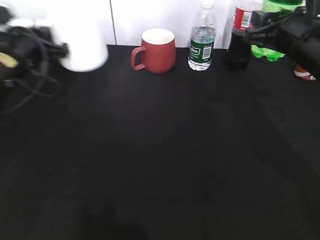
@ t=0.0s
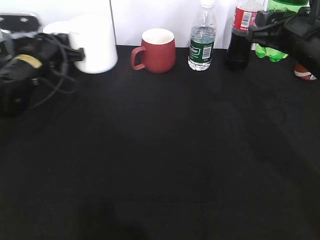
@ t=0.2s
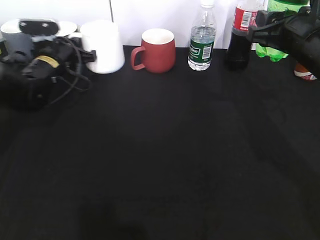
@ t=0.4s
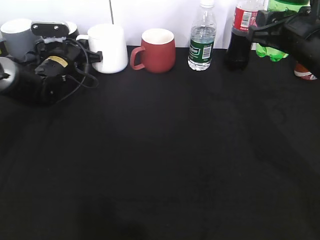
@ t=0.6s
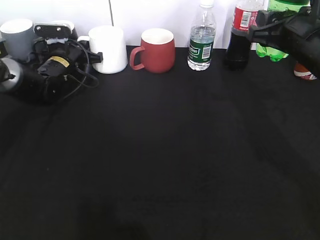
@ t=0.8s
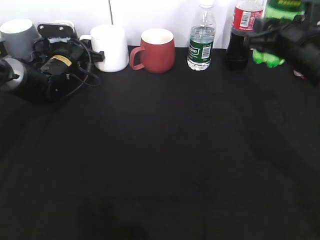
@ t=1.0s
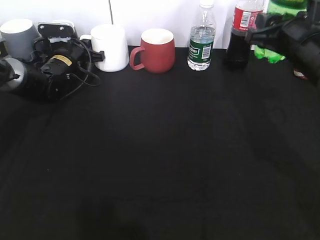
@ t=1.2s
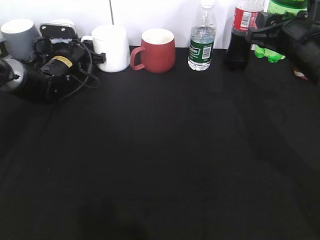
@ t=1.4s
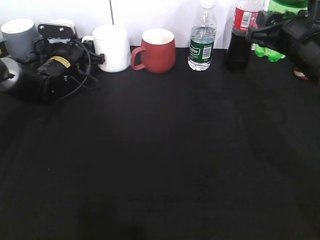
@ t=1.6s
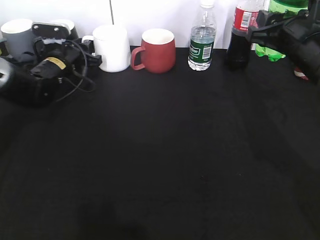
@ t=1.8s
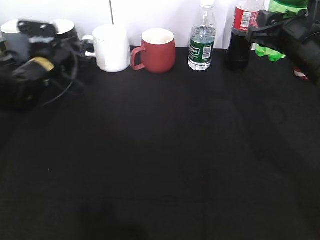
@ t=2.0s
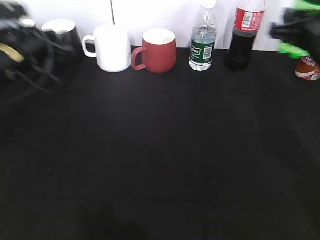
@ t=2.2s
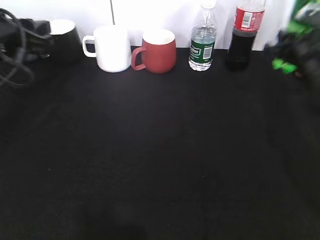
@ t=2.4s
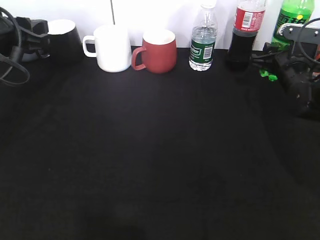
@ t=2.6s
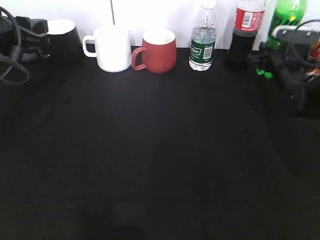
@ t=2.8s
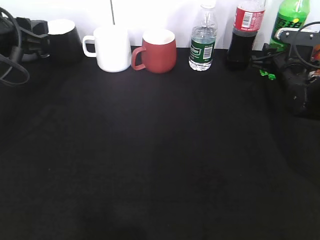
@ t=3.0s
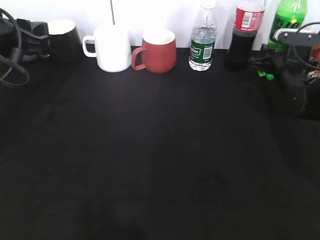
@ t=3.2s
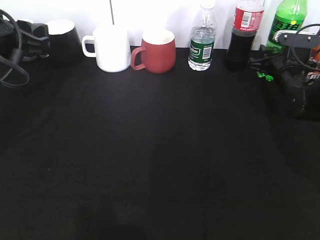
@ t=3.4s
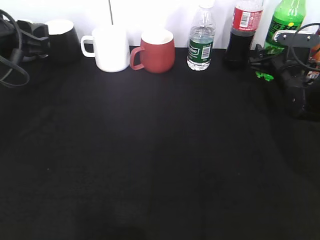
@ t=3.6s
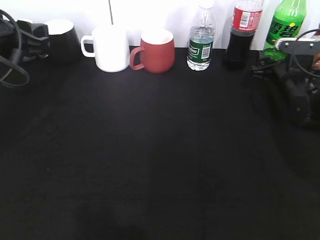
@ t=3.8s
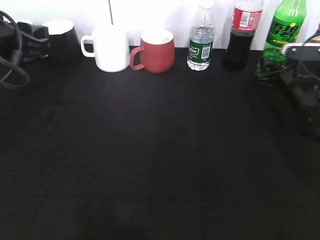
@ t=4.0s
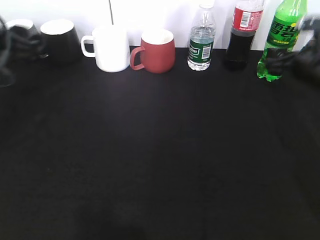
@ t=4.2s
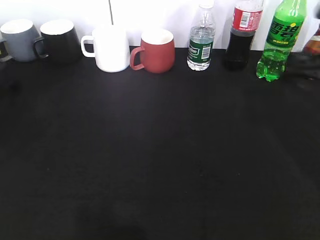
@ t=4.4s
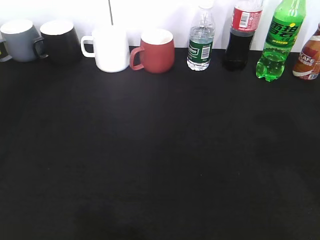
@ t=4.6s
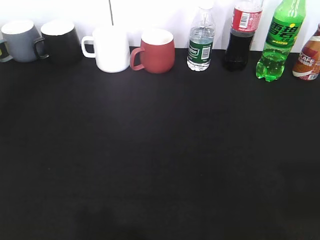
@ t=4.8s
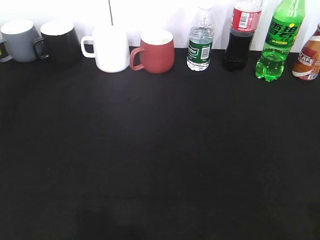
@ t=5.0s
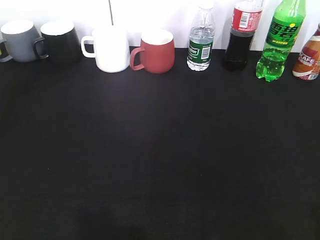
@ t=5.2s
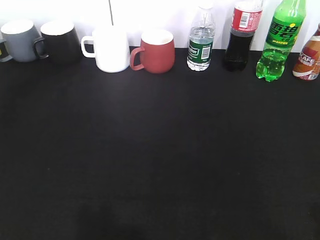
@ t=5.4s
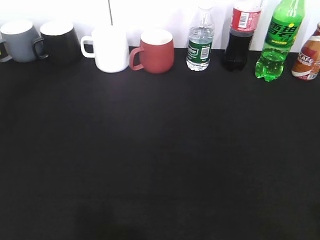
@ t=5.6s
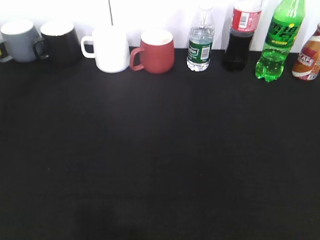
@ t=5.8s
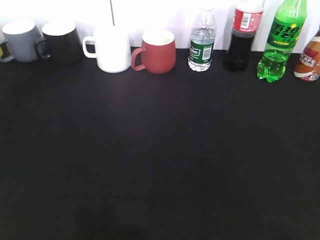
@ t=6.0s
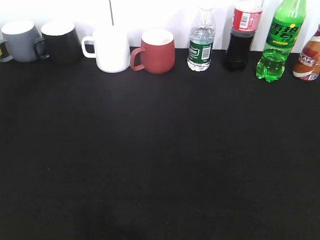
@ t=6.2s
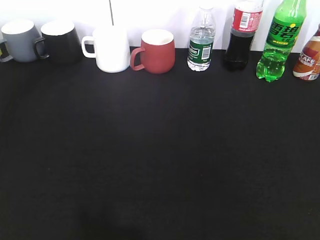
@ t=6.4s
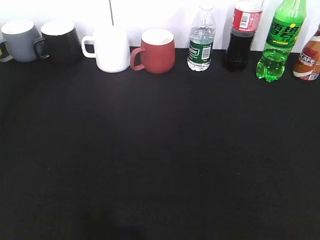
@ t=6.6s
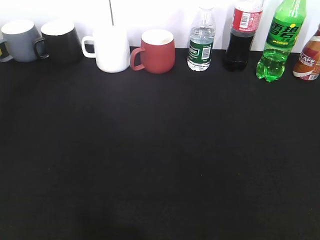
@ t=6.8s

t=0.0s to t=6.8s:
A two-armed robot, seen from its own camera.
Step, t=0.0s to t=4.0s: Place the sprite bottle on the table with right gripper.
t=0.0s to t=1.4s: The left gripper shifts about 15 cm forward and downward, and opens.
t=1.4s to t=2.8s: The left gripper travels backward and upward by roughly 25 cm. The right gripper travels downward, forward and to the right by roughly 20 cm.
t=2.8s to t=4.0s: The right gripper moves backward, roughly 5 cm, and opens up.
t=4.0s to t=5.4s: The left gripper is displaced backward by some 30 cm, and opens; the right gripper moves backward and upward, roughly 40 cm.
